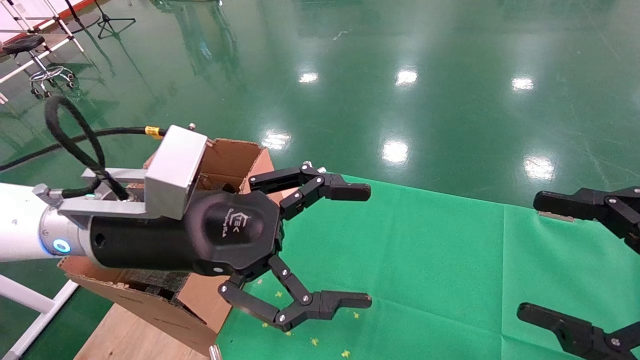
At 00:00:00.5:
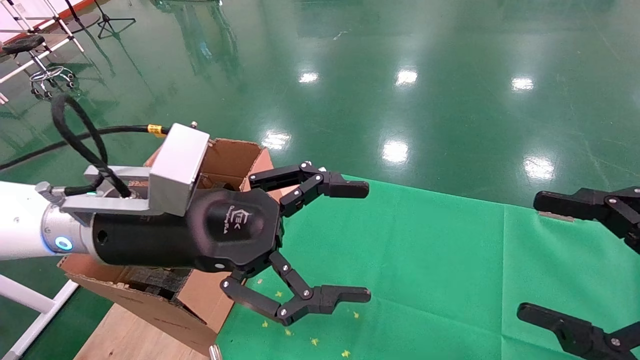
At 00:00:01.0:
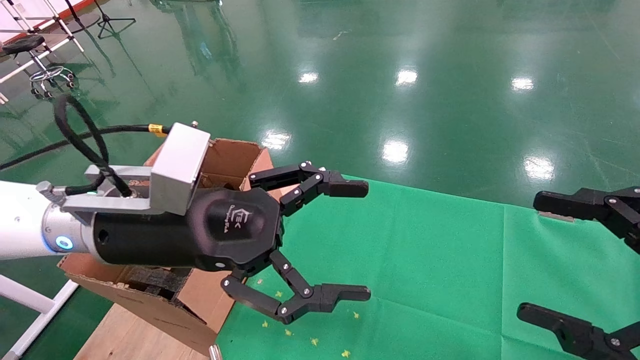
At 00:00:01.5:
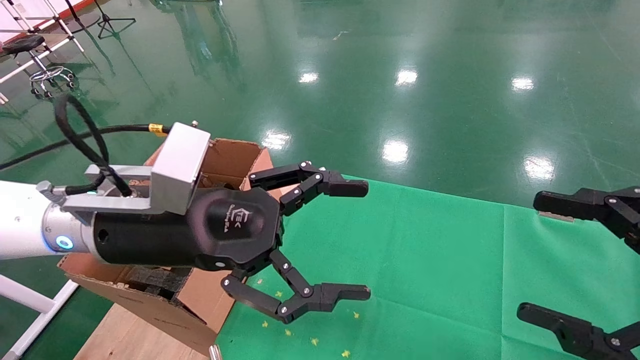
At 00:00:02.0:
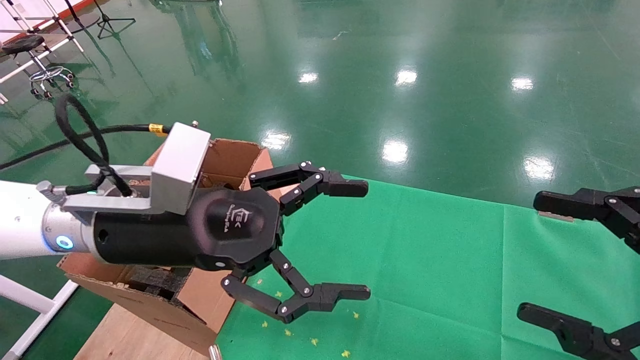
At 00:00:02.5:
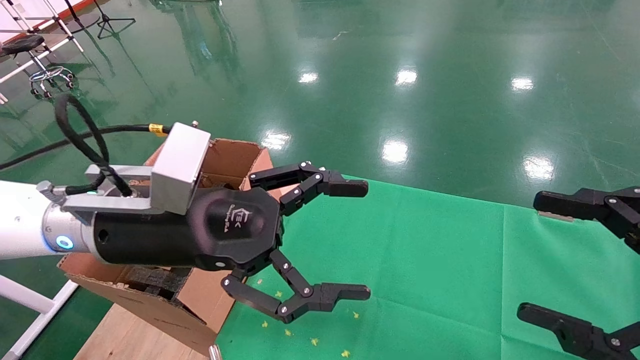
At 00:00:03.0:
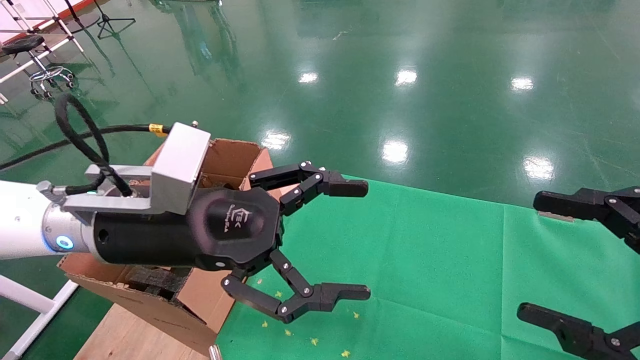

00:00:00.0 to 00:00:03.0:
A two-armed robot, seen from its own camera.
Task of the whole recording: using a robotic arm to pick up a cardboard box and palace it the carton.
00:00:00.0 to 00:00:03.0: The two grippers keep their place.
